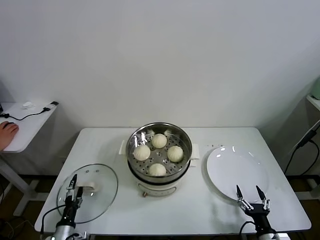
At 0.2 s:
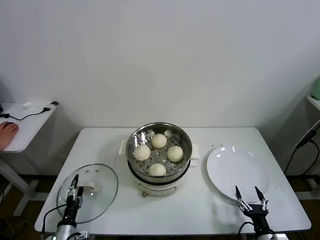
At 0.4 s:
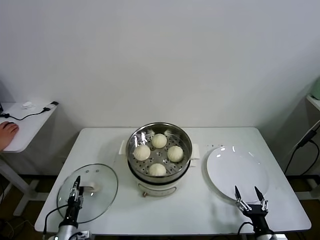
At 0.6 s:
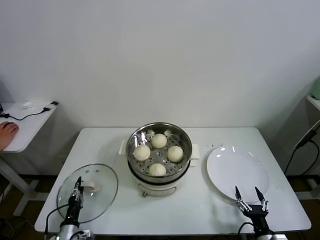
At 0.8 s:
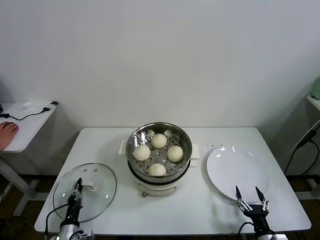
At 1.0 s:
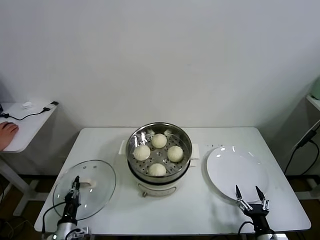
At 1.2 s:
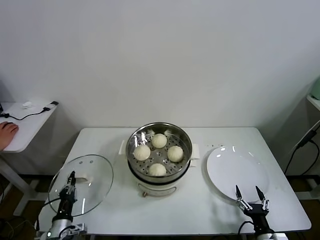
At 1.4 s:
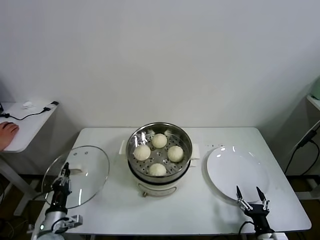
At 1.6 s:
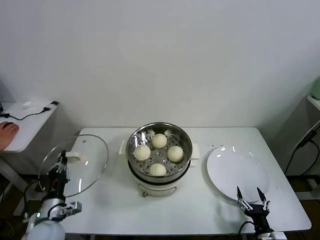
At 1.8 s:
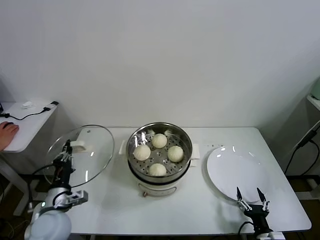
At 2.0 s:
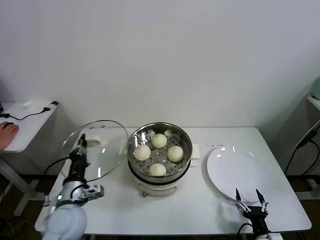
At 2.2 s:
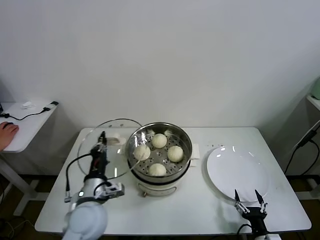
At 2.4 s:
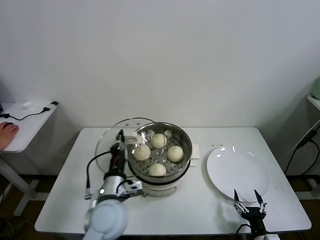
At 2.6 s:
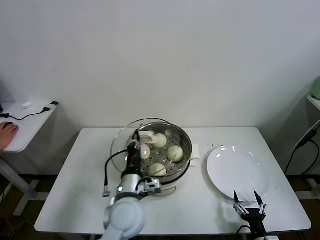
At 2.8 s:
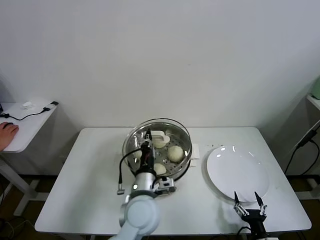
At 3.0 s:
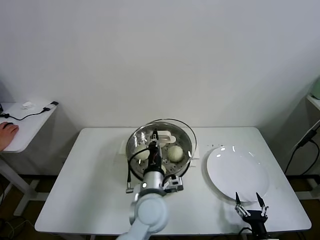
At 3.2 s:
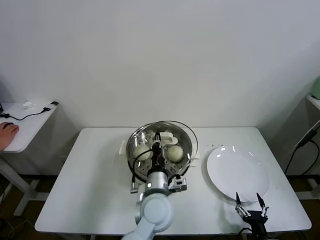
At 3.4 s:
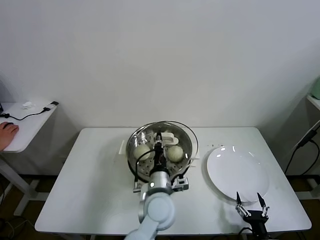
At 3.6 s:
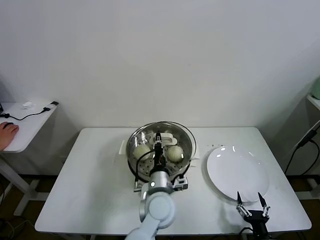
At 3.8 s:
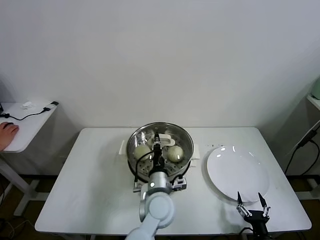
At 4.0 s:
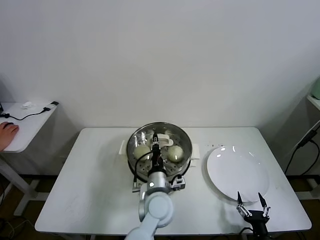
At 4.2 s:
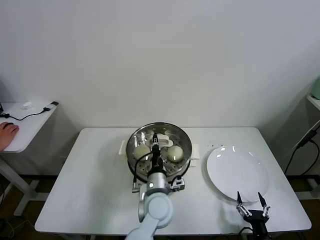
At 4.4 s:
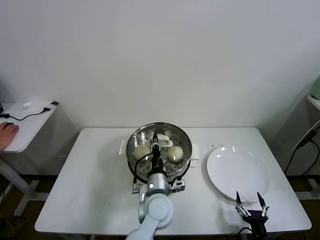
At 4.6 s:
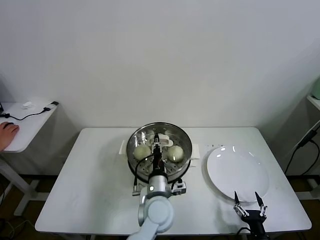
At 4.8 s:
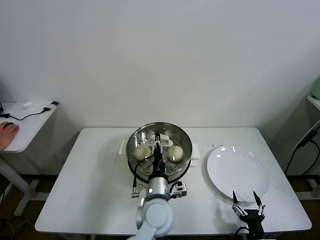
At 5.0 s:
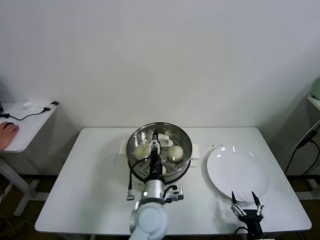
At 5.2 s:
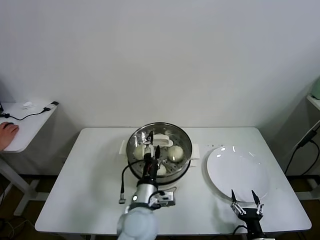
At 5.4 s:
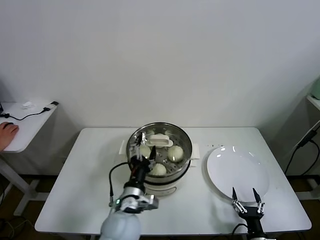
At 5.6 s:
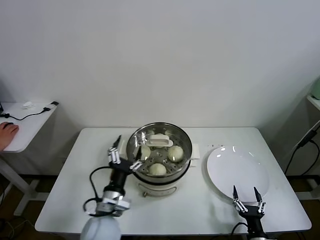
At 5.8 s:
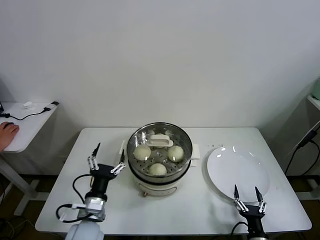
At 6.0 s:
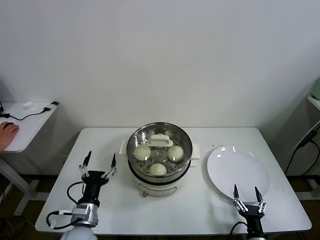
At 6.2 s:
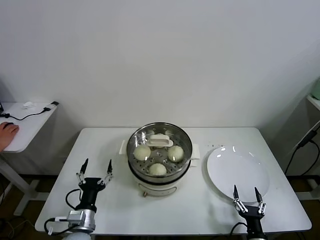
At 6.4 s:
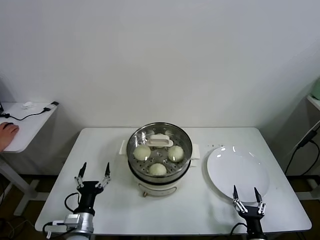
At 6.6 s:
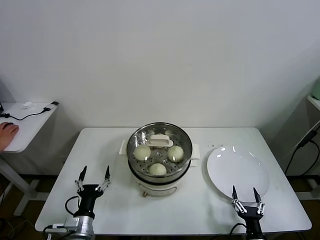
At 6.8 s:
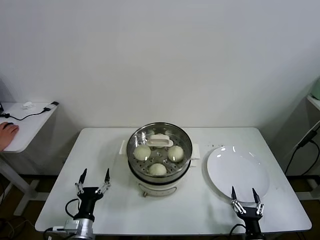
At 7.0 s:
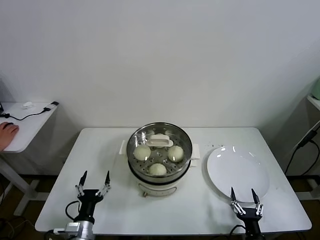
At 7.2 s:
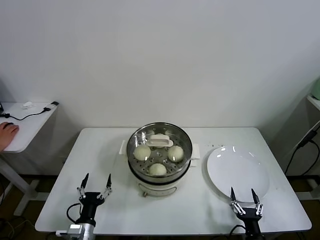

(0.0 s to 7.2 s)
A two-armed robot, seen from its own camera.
Task of the whole recording: take steamed baozi put them in steamer.
Step, 1.0 s - 5.0 s: Place the pot lid on the steamer with left gripper.
0.0 s - 1.4 s: The left gripper moves upward, about 10 cm, and closes up.
1.4 s - 2.8 s: The left gripper heads to the right and upward, covering approximately 30 cm.
2.8 s - 4.4 s: The left gripper moves downward and to the right, roughly 10 cm.
4.4 s - 5.8 s: The left gripper moves to the left, approximately 20 cm, and opens its fingers.
5.8 s - 7.2 s: The left gripper shifts some 15 cm downward and to the left.
